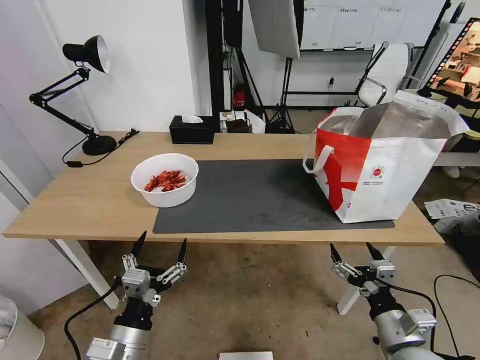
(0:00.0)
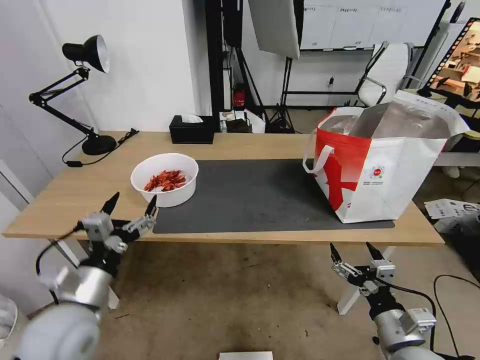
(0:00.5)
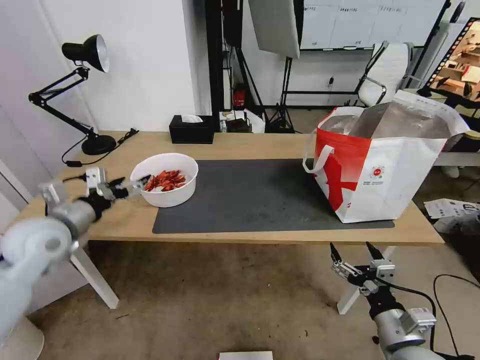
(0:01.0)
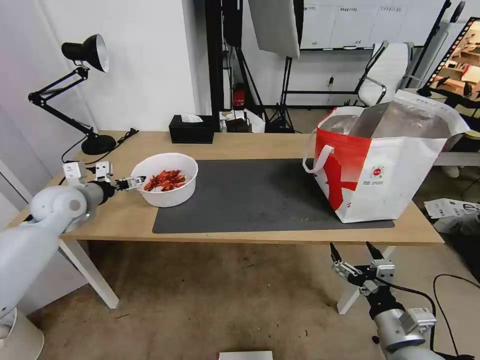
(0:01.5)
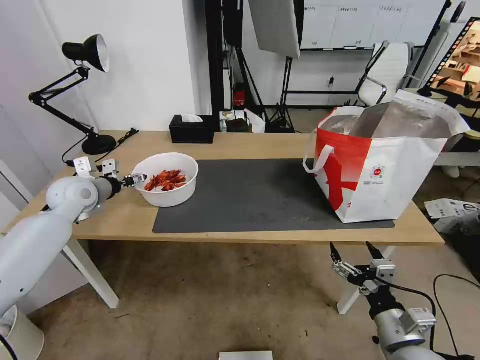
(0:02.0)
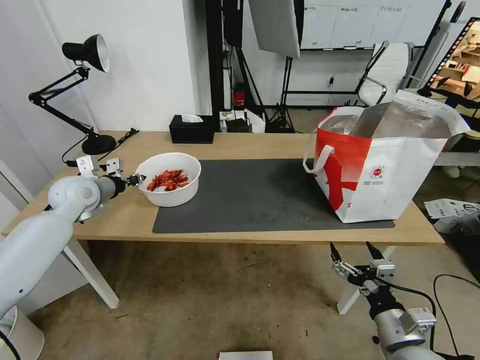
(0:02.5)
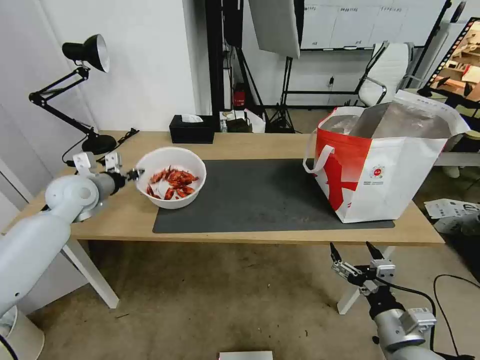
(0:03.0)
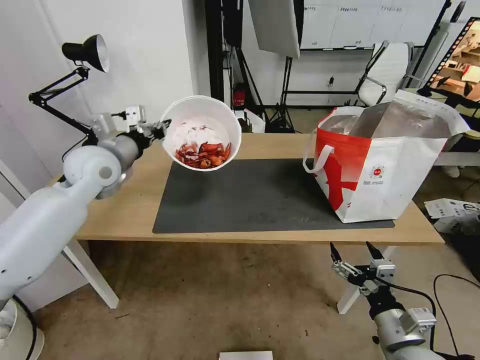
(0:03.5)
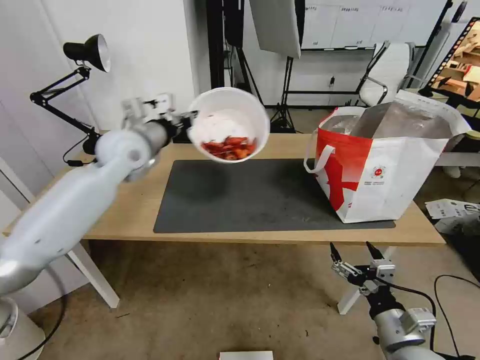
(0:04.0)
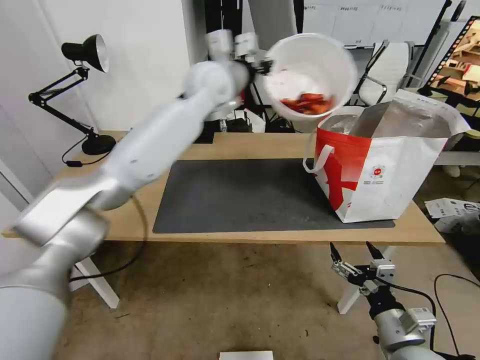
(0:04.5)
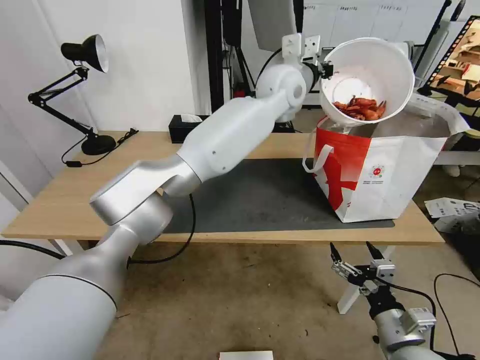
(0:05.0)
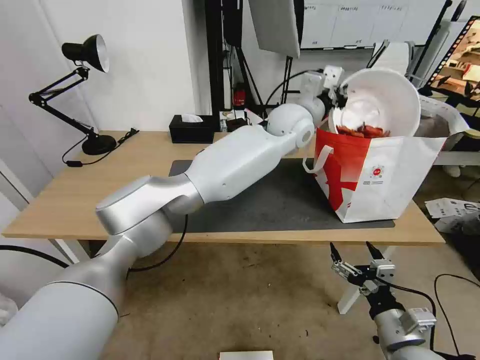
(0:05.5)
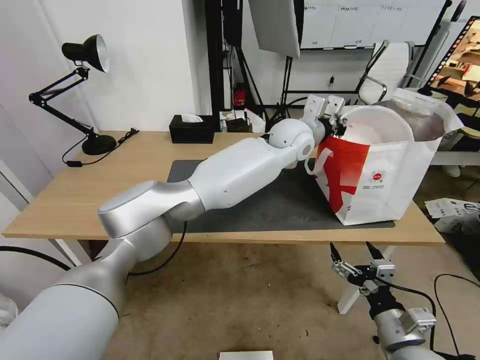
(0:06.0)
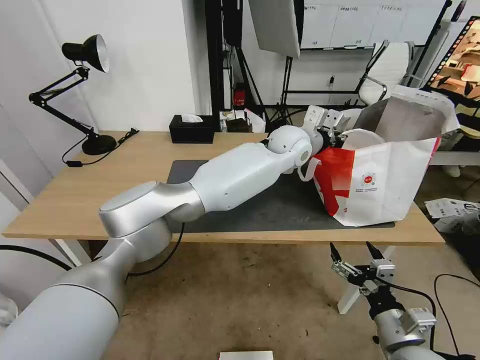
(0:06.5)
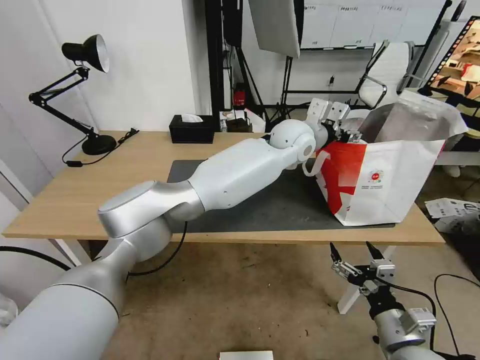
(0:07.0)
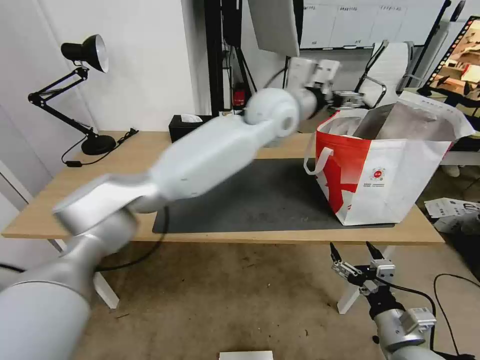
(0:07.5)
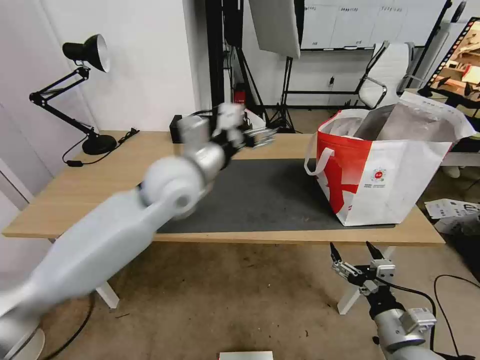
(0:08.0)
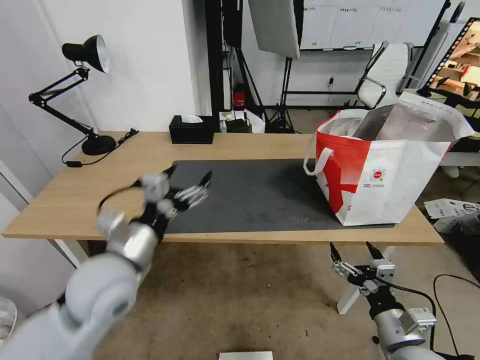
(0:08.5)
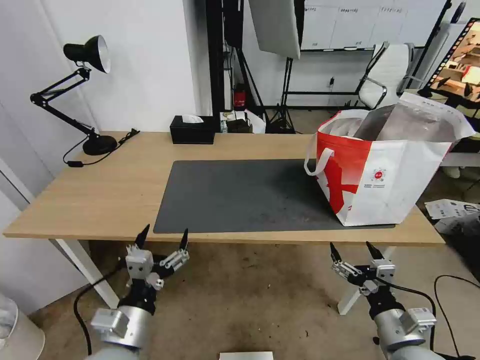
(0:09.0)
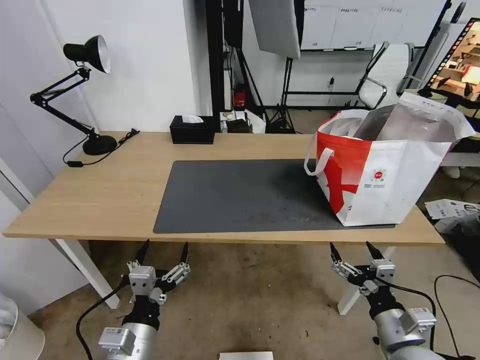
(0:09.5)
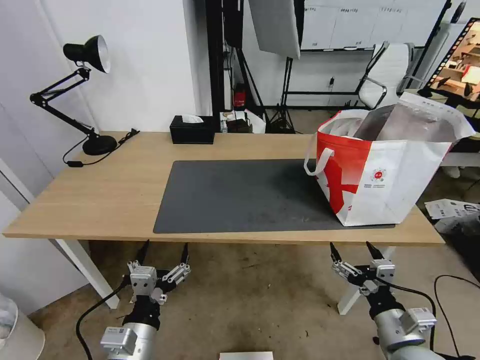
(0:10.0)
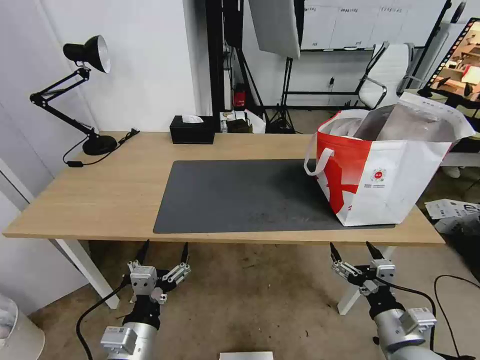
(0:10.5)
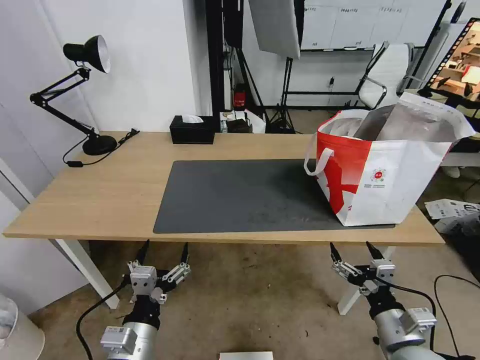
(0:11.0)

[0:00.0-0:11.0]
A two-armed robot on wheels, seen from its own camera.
Task of the whole recording: Pick up the trash from the table and place it into the takeout bag.
0:00.0 to 0:02.0: The left gripper heads forward and to the left, covering some 40 cm.
0:02.0 to 0:03.5: The left gripper is displaced to the right and upward by approximately 15 cm, and closes.
0:03.5 to 0:05.5: The left gripper moves to the right, some 40 cm.
0:05.5 to 0:07.5: The left gripper shifts roughly 5 cm to the left, and opens its fingers.
0:07.5 to 0:09.0: The left gripper goes approximately 50 cm backward, to the left and downward.
0:09.0 to 0:11.0: There are only small adjustments of the grippers.

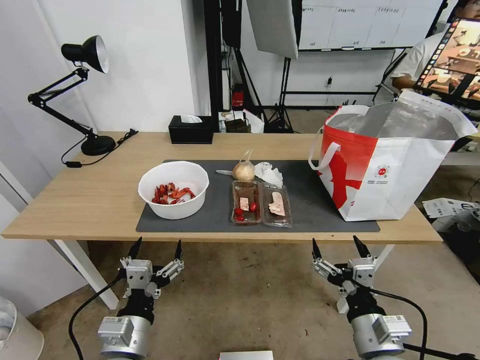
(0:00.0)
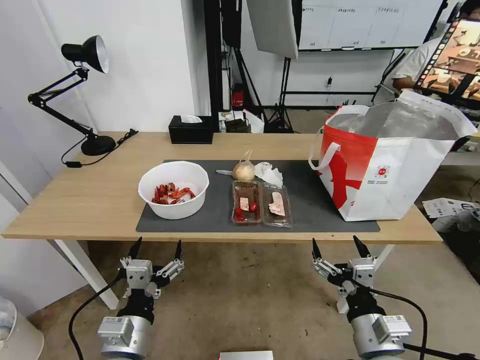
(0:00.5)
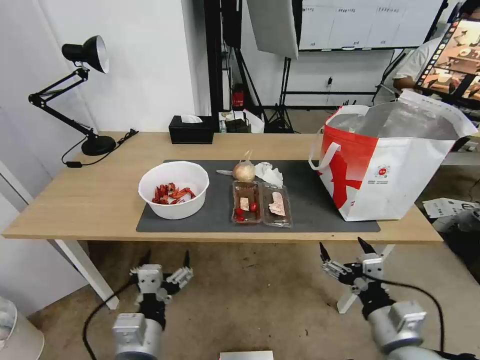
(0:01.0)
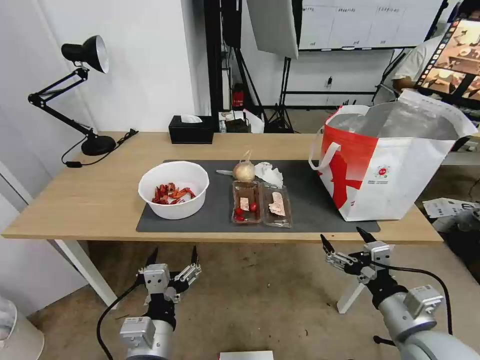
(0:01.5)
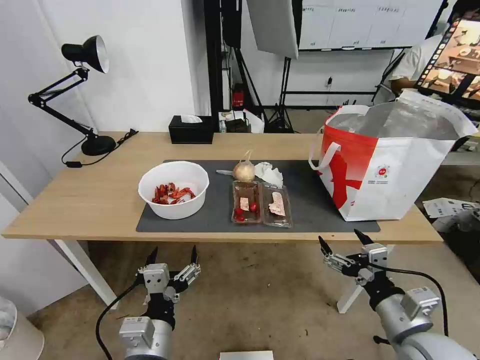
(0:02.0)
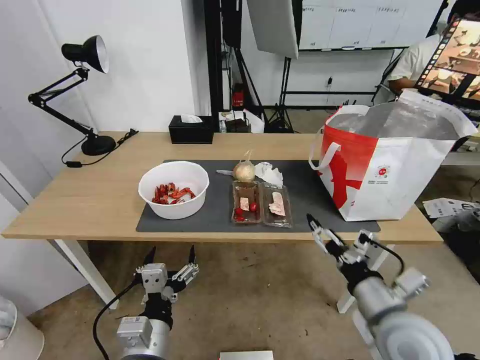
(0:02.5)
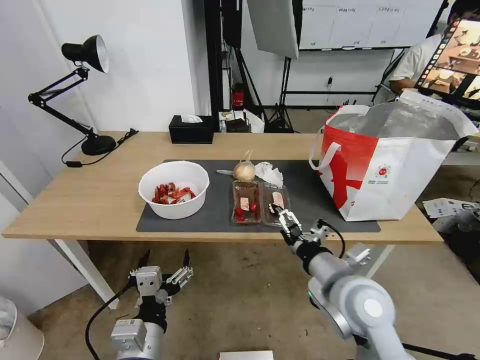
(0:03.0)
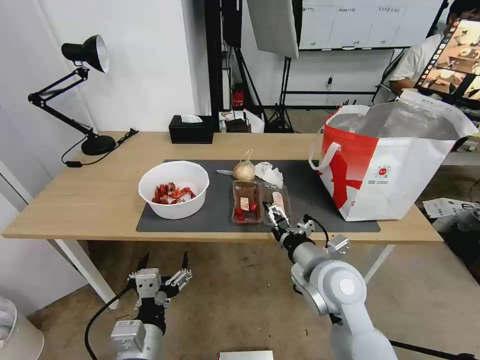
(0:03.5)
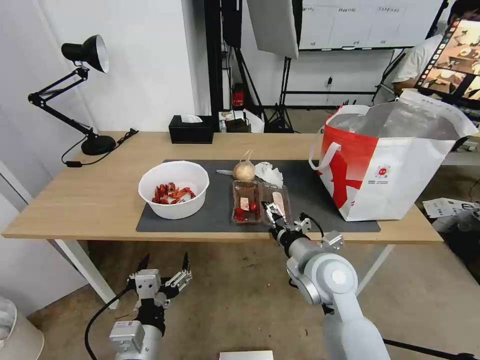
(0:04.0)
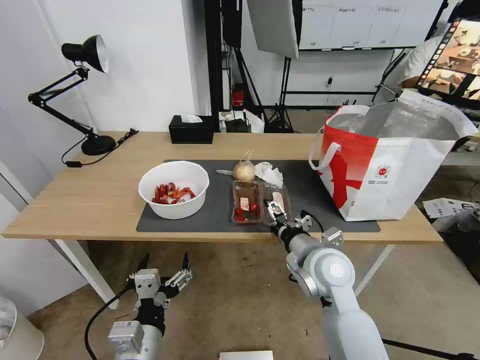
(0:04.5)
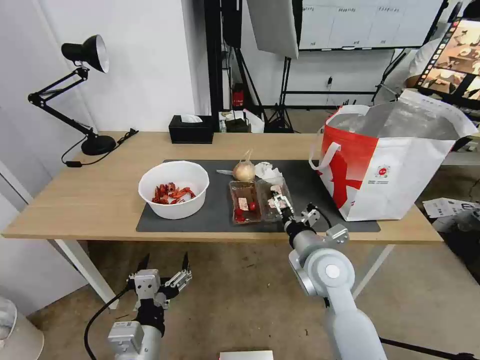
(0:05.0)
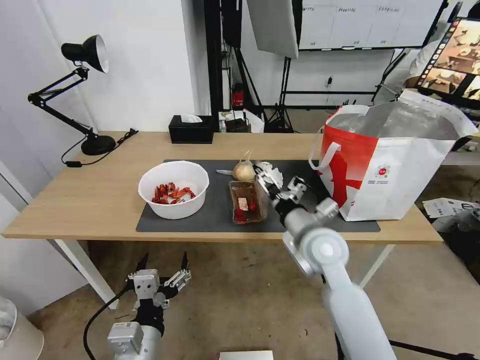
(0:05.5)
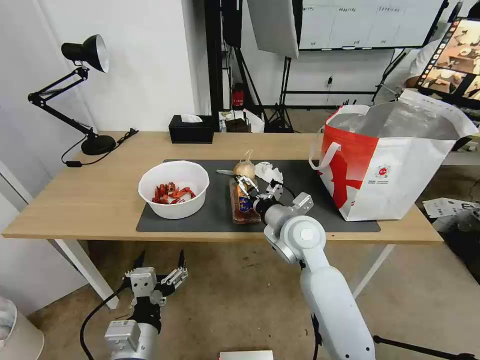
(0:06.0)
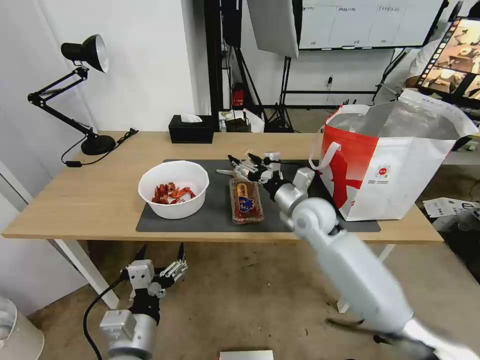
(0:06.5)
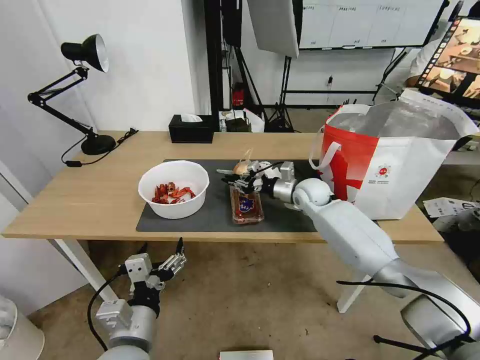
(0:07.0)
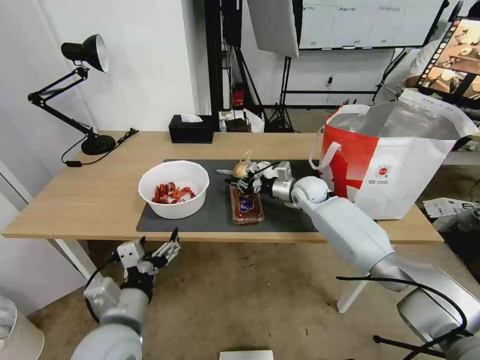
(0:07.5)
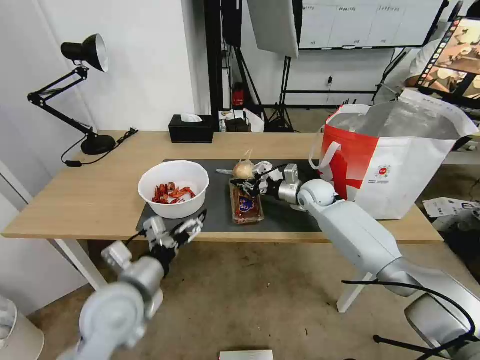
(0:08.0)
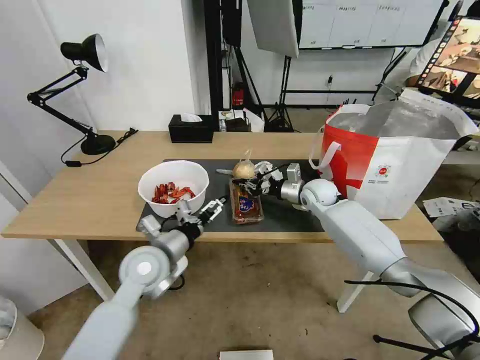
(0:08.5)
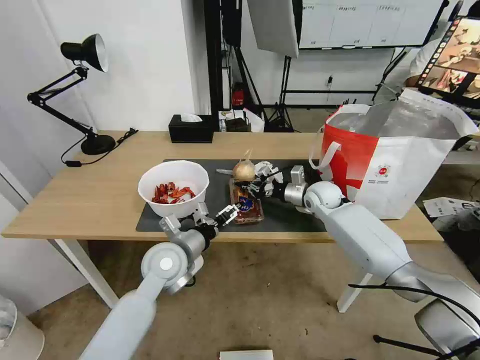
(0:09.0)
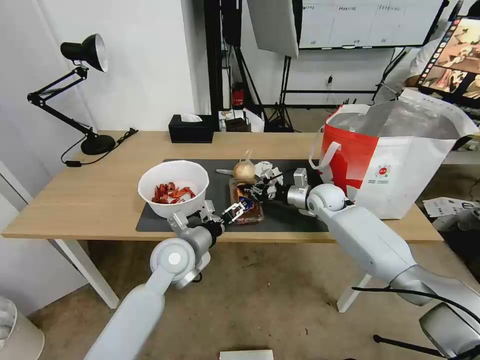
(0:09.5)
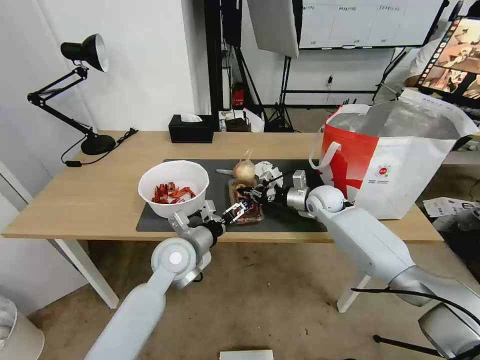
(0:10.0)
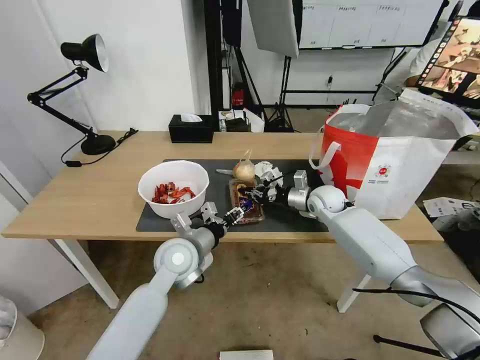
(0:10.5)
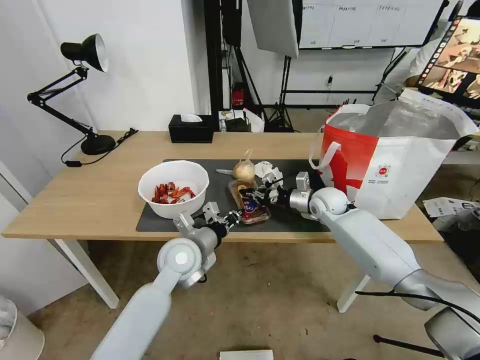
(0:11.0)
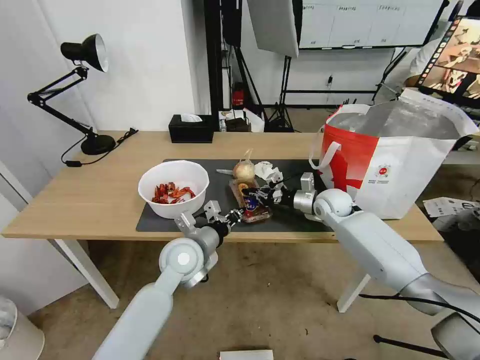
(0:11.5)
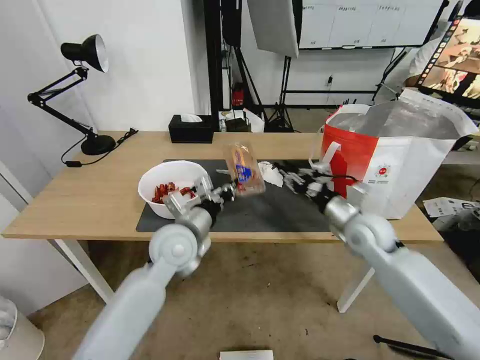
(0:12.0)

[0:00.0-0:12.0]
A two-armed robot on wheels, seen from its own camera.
Task of the whole recording: Pick up the trash from the table and place it into the takeout bag.
0:02.0 to 0:04.0: The right gripper travels to the left and forward by about 20 cm.
0:04.0 to 0:06.0: The right gripper is displaced forward by approximately 10 cm.
0:06.0 to 0:08.0: The right gripper is displaced forward and to the right by some 20 cm, and closes. The left gripper shifts about 10 cm forward and upward.
0:08.0 to 0:10.0: The left gripper heads forward and to the right, covering approximately 15 cm.
0:10.0 to 0:12.0: The right gripper heads backward, covering approximately 15 cm, and opens its fingers, while the left gripper closes.

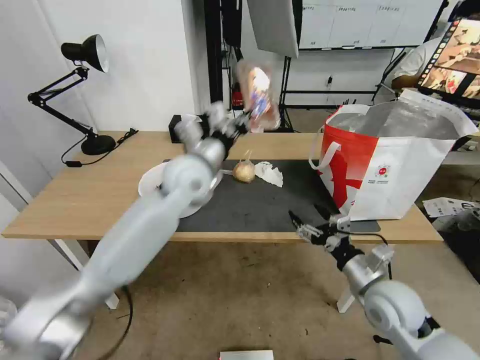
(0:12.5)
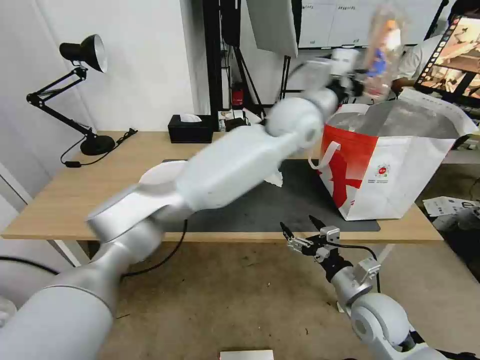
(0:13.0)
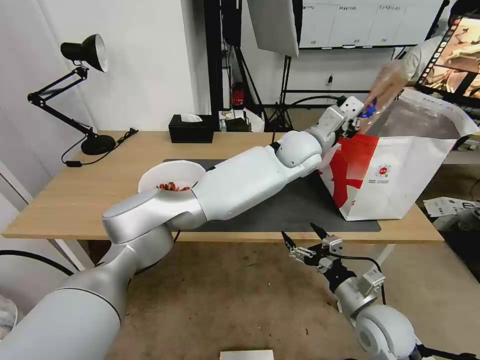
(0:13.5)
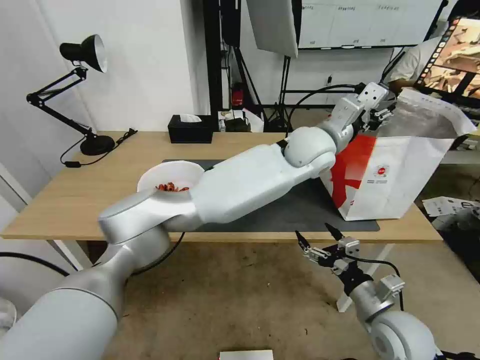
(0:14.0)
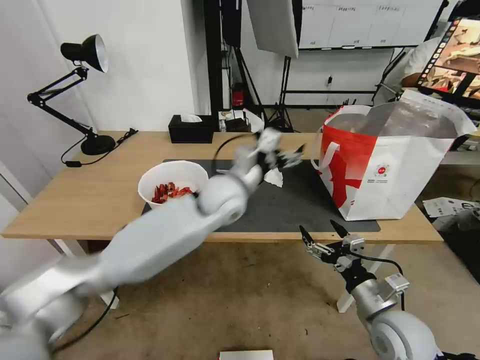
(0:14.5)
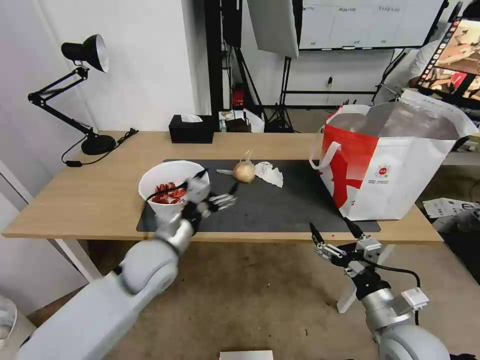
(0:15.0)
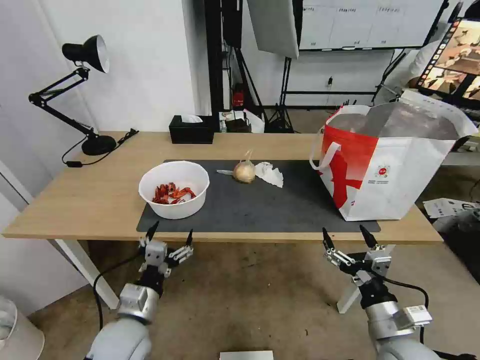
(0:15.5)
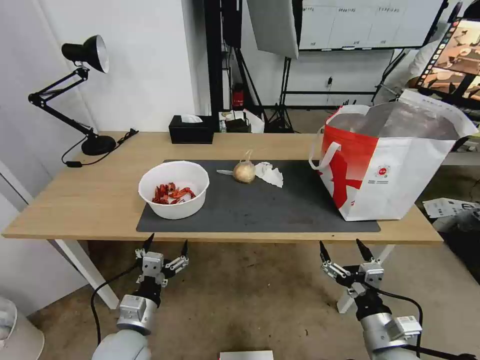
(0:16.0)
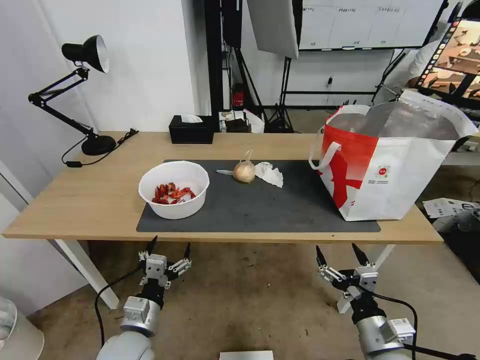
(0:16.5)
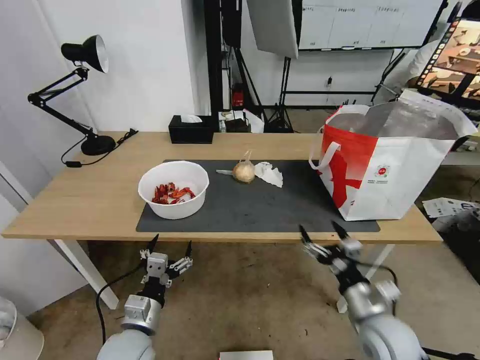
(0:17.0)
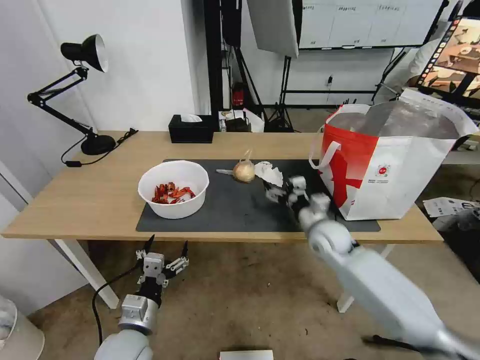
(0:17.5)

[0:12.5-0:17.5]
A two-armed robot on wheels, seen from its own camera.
Task of the whole recording: Pick up the trash from the table and place it into the takeout bag.
0:12.5 to 0:15.0: The right gripper goes some 10 cm backward. The left gripper is displaced backward and downward by approximately 20 cm, reaches approximately 25 cm to the right, then returns, and opens.
0:15.0 to 0:17.5: The right gripper heads forward, covering roughly 25 cm; the left gripper goes about 15 cm downward and backward.
